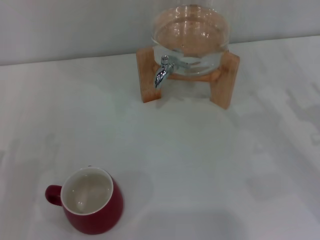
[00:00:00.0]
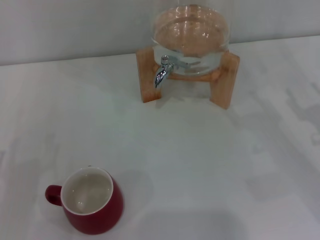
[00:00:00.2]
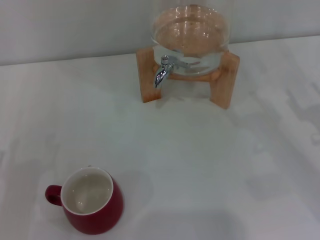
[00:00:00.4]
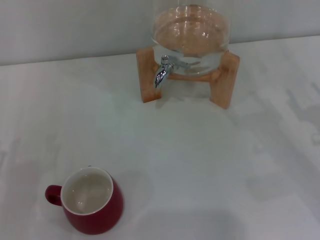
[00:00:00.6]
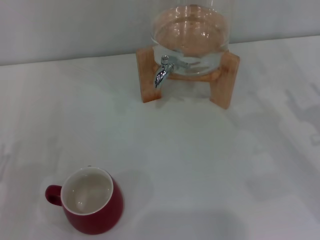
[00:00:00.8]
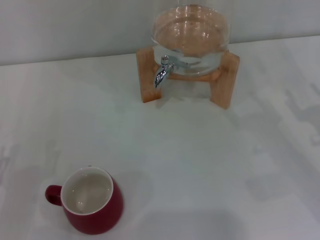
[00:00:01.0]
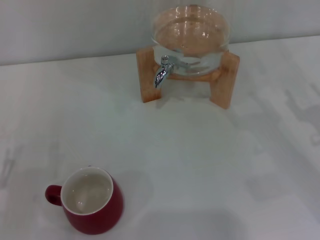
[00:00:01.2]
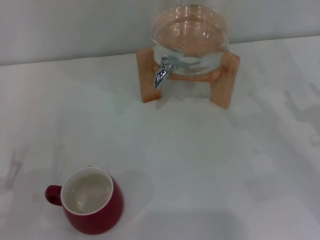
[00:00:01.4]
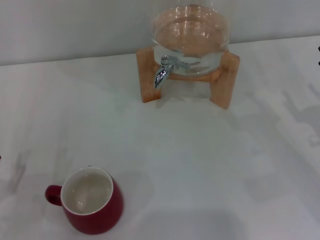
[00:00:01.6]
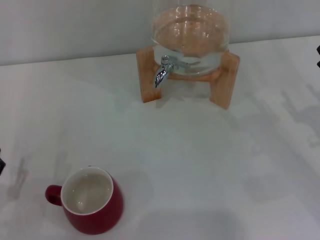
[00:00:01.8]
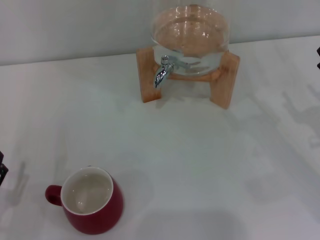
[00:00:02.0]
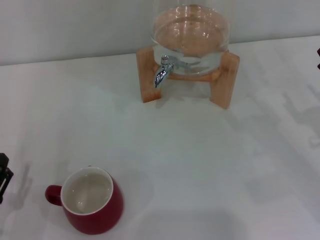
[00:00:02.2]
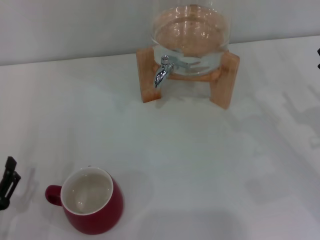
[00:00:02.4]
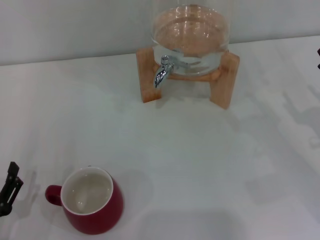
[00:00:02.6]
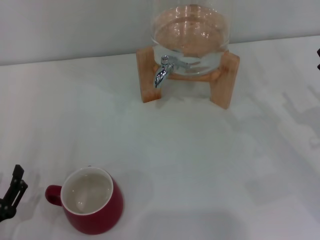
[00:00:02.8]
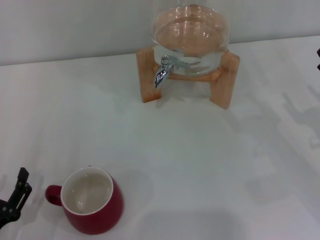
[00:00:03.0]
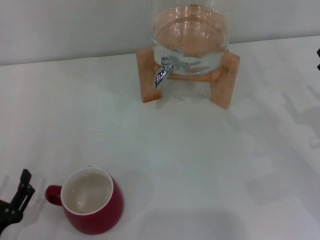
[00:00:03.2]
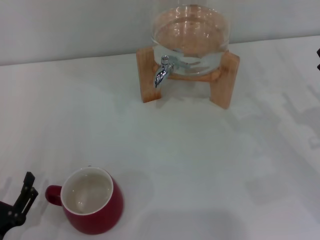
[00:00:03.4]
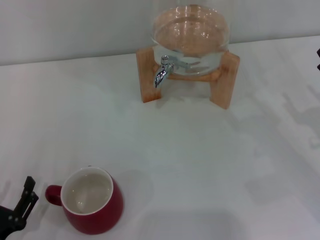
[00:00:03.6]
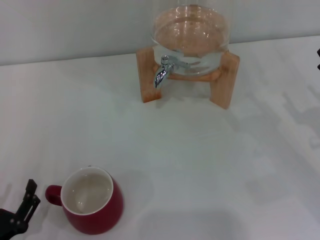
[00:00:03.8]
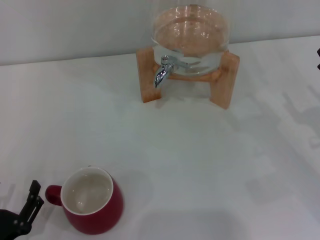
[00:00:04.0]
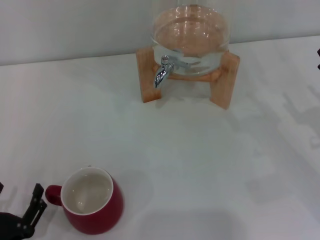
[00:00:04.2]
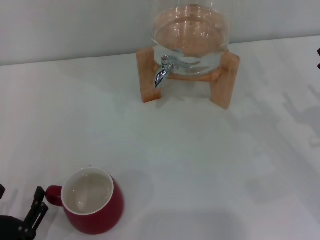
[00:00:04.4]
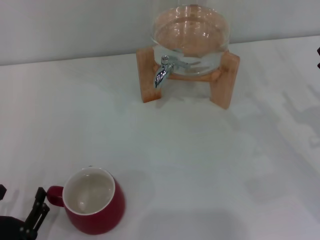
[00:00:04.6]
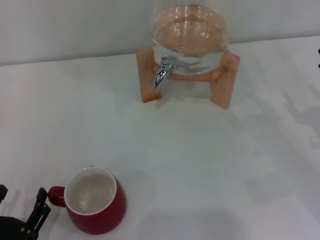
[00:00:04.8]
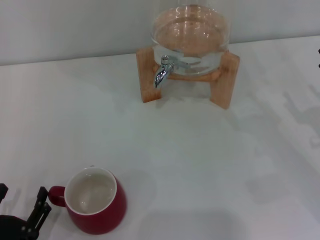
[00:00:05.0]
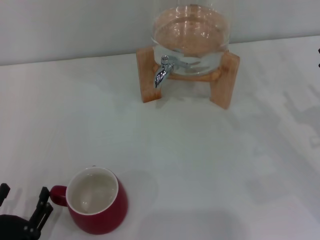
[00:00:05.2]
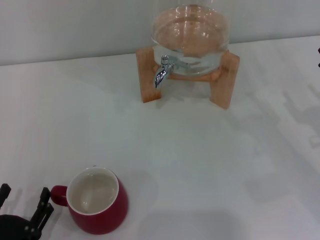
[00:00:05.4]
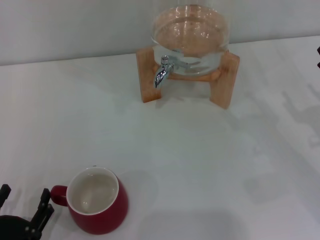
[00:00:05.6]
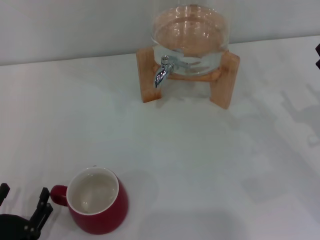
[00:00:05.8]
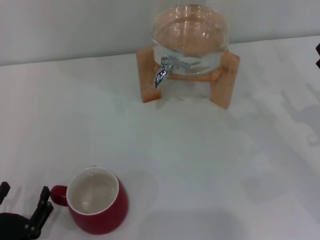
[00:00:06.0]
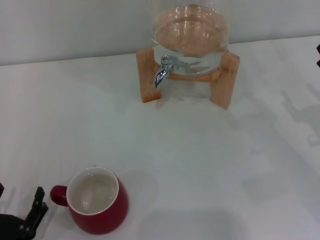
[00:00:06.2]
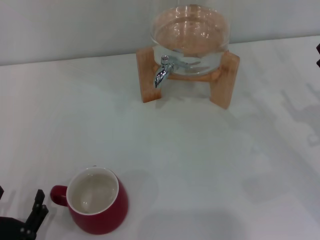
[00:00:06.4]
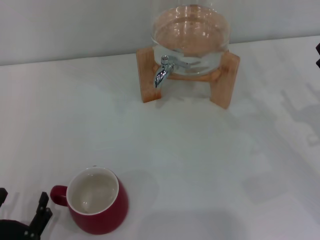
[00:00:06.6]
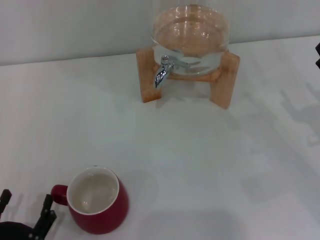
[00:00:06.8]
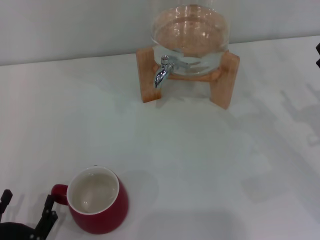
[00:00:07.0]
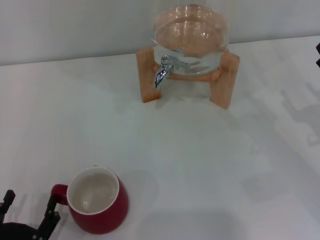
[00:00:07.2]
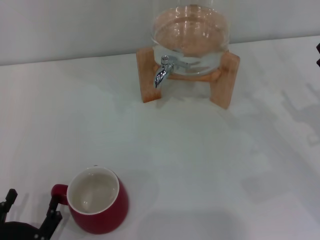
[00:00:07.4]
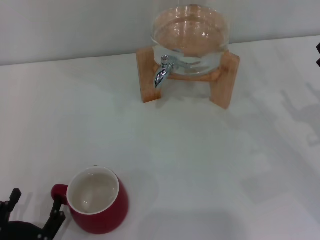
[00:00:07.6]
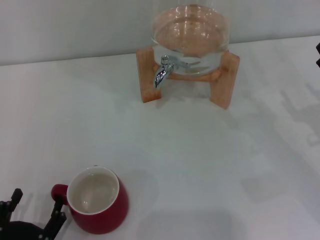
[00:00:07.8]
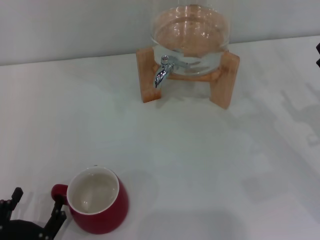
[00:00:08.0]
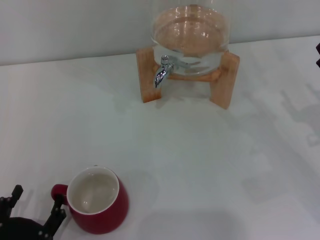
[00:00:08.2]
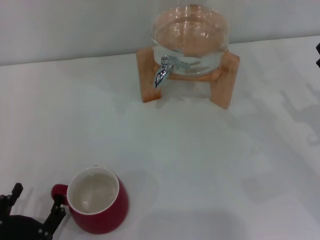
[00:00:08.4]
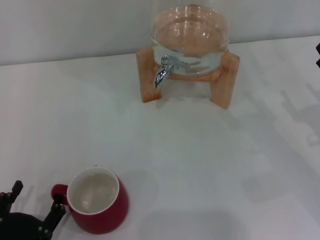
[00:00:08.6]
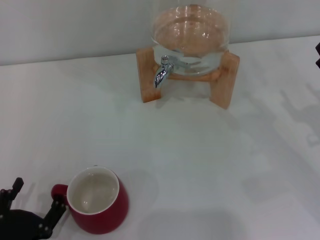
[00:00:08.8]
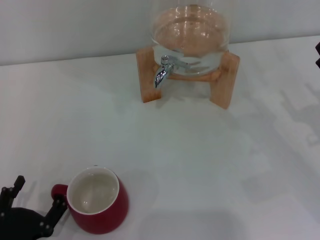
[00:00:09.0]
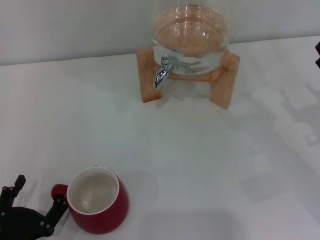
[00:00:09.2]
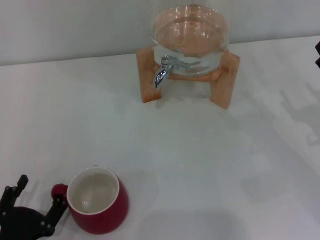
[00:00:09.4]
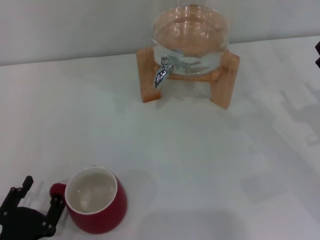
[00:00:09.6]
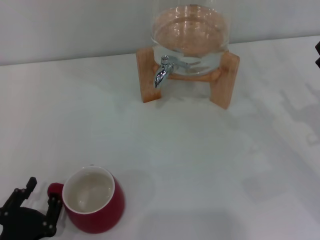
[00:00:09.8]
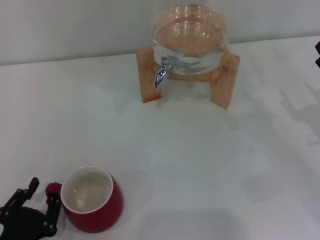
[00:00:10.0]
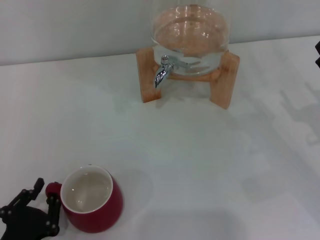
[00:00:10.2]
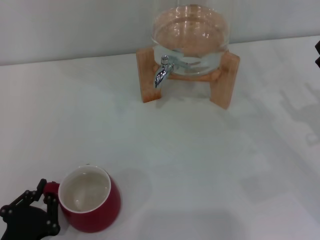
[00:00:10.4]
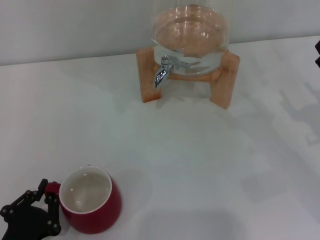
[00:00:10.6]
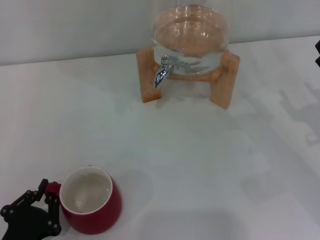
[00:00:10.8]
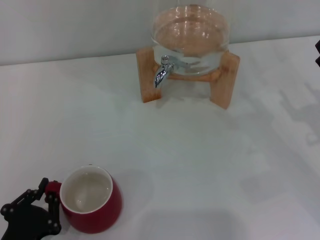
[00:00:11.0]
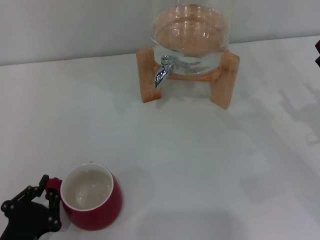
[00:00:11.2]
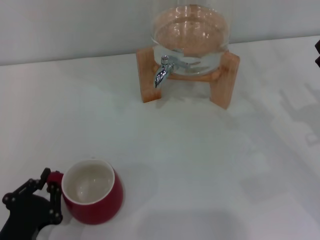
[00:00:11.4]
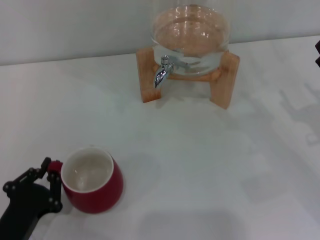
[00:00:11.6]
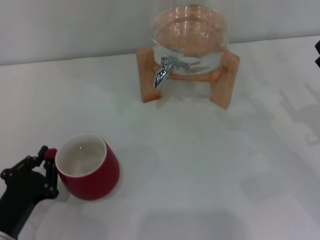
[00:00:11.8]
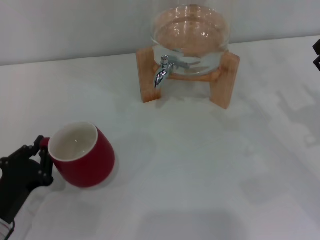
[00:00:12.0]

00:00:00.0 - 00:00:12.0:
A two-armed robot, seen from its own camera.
Task of the whole recording: the left gripper pick up the red cup and place it horizontally under the faucet, the right gripper turn on the faucet to fill the cup, and then turn off the faucet.
00:00:01.6 - 00:00:03.0: The grippers move only a little.
00:00:03.0 - 00:00:04.4: The grippers stay close to where they were, moving slightly.
00:00:04.4 - 00:00:06.0: Both grippers stay about where they are.
00:00:06.0 - 00:00:09.0: There are only small adjustments of the grippers.
00:00:09.0 - 00:00:10.4: The left gripper closes up.
00:00:10.4 - 00:00:12.0: The left gripper shifts about 10 cm forward.

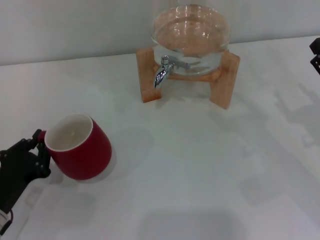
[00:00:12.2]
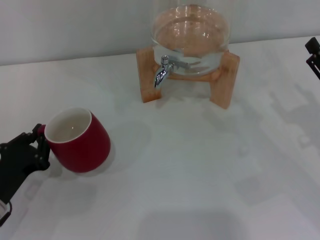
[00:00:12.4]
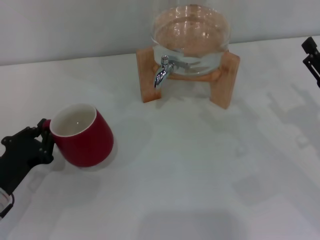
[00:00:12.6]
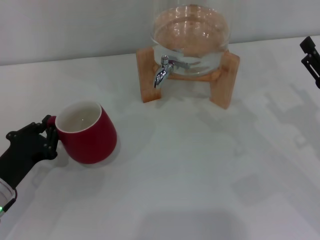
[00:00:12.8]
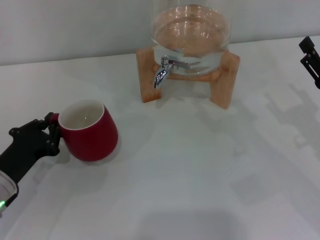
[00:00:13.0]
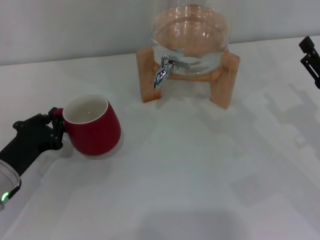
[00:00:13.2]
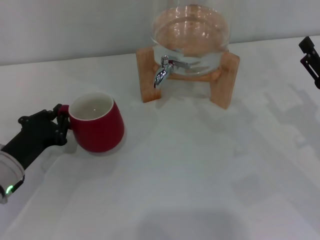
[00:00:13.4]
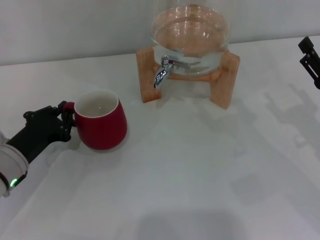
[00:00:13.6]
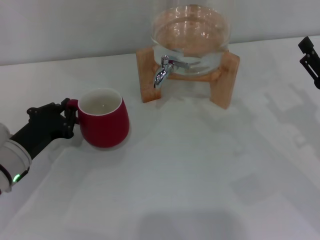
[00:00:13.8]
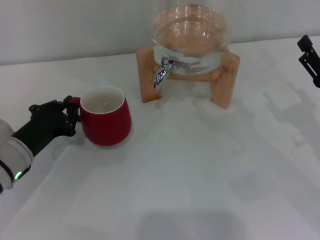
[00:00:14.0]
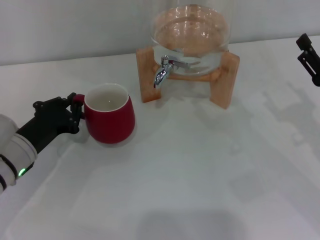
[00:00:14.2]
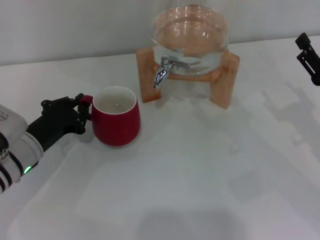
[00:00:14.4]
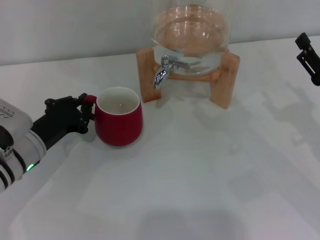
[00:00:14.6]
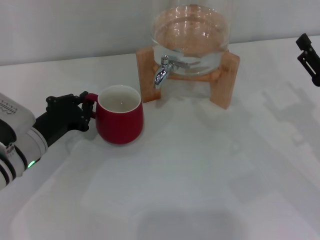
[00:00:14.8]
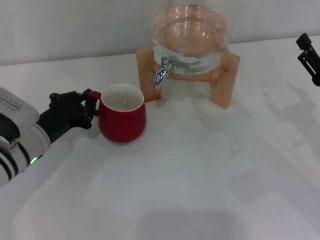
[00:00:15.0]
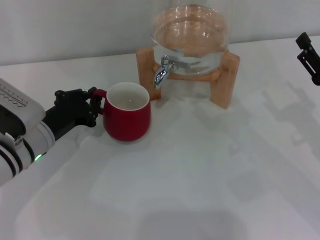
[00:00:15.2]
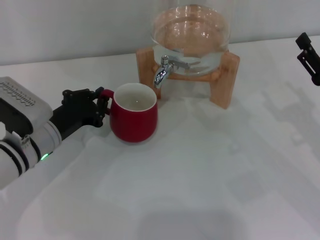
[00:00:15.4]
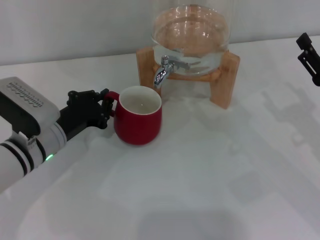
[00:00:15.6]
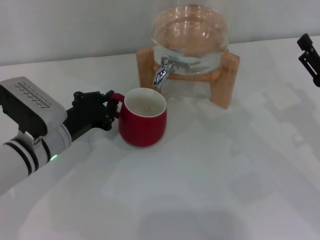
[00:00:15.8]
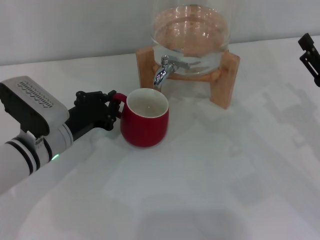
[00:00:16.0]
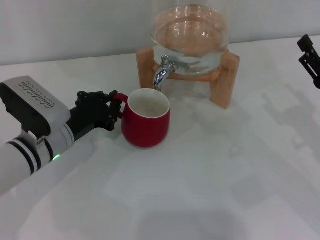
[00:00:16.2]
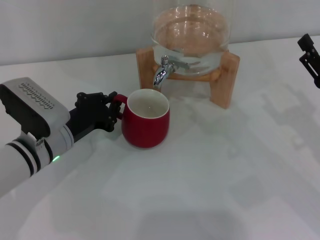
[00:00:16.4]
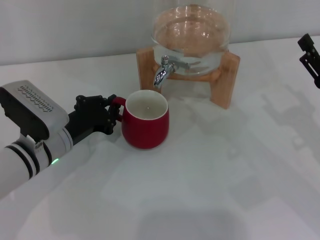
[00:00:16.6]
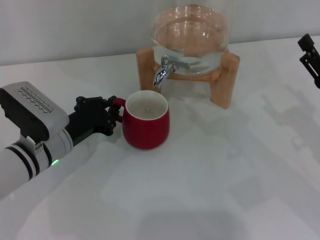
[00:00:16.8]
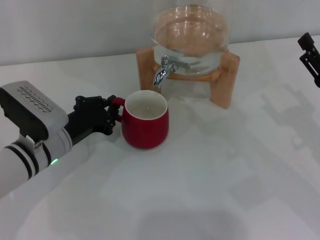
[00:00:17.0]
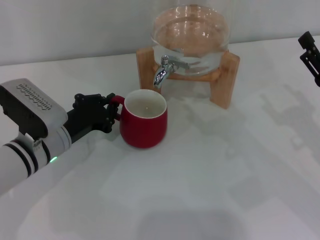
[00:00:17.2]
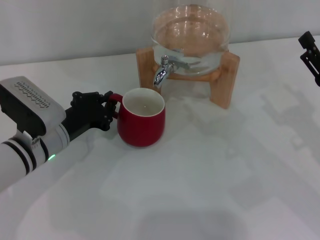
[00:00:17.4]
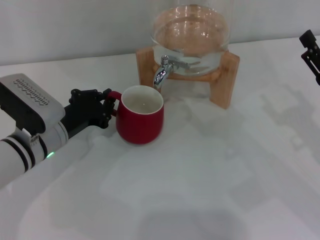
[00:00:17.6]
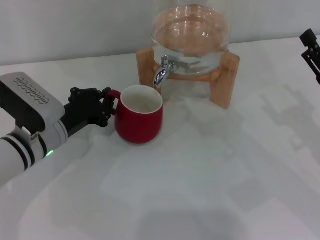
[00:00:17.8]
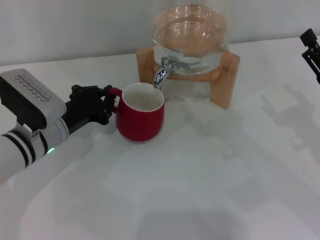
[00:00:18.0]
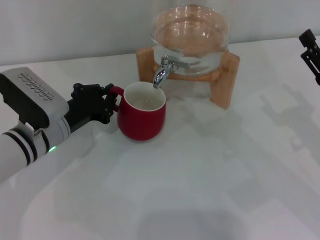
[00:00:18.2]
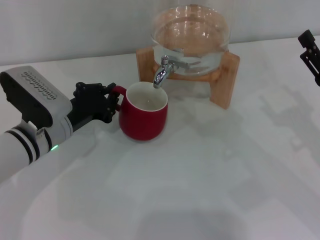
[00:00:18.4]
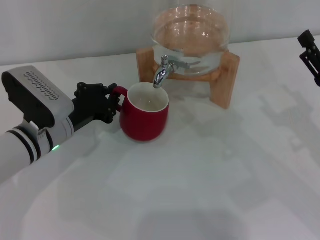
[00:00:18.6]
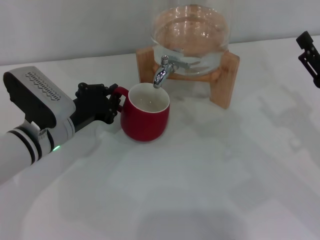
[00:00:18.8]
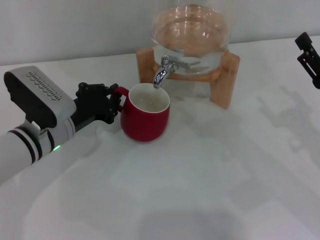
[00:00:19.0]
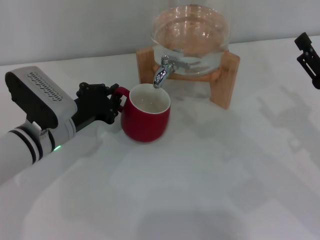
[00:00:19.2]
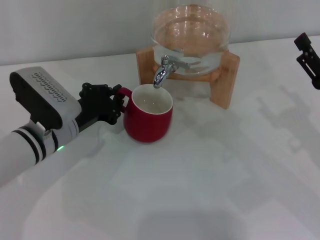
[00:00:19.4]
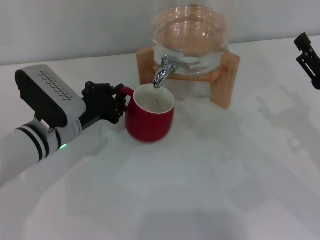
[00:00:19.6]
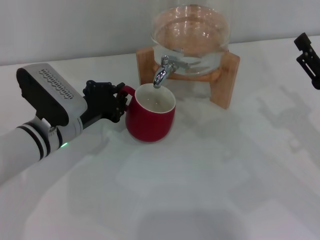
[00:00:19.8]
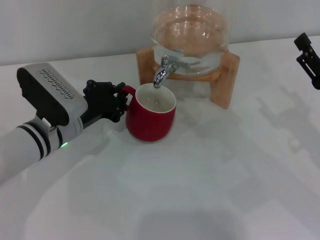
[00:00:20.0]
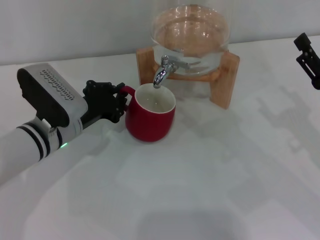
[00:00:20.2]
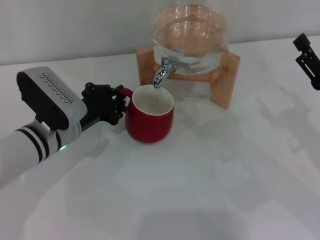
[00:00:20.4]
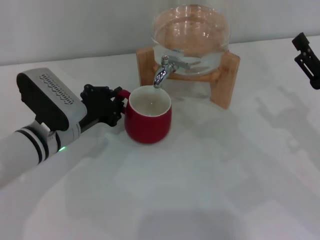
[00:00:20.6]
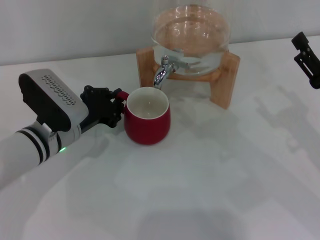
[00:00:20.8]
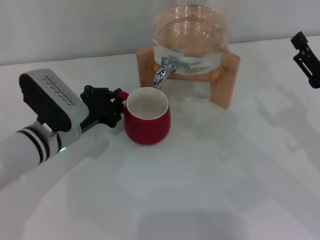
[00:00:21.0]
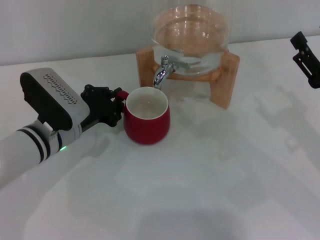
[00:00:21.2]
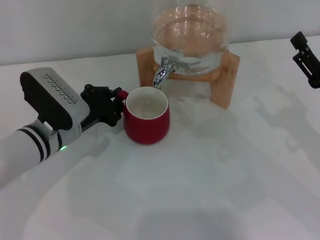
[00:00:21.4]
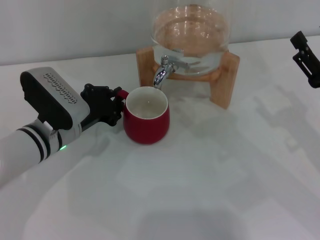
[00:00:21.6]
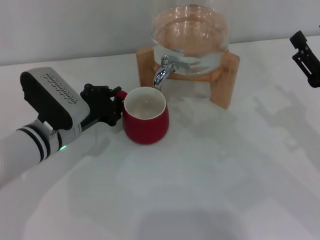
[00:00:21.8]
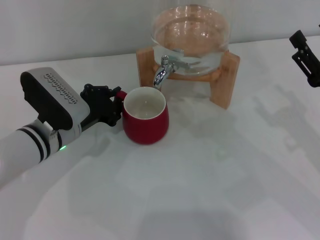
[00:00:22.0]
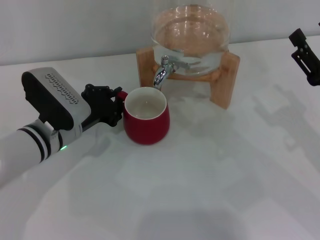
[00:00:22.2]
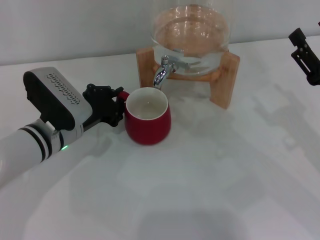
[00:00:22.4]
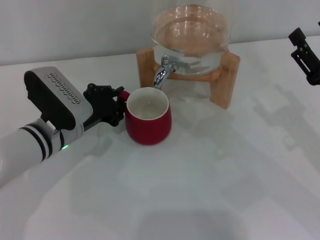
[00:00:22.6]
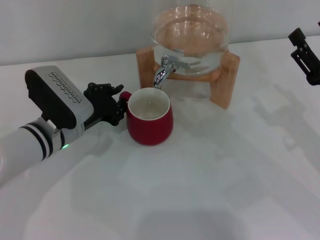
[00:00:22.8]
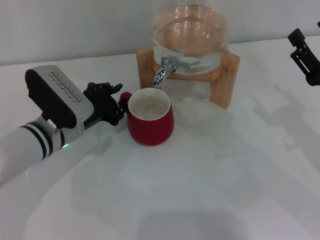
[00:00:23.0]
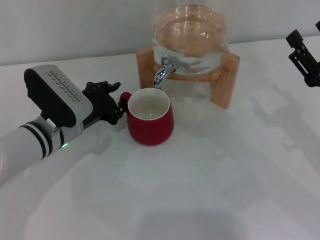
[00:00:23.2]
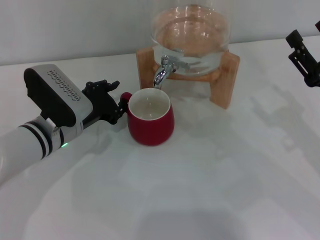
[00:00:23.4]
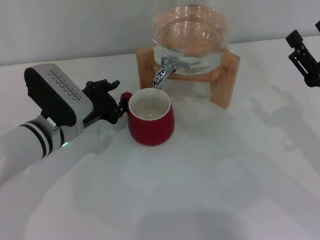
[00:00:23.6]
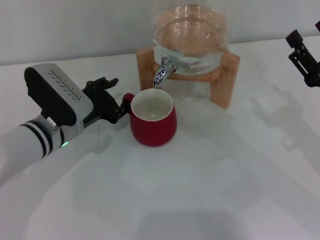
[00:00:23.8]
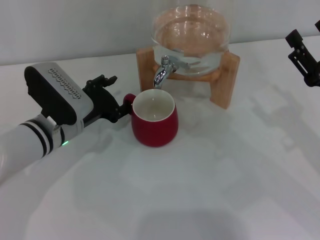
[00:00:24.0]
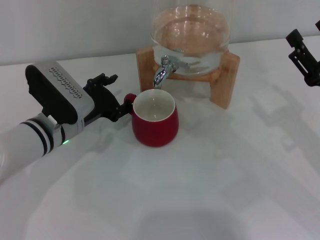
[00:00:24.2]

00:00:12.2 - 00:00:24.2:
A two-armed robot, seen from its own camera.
Task of the whole recording: the left gripper pick up the red cup and place it horizontally under the faucet, the right gripper turn on the faucet to fill the cup, and then turn off the faucet.
00:00:12.2 - 00:00:13.8: The left gripper travels forward by approximately 10 cm.
00:00:13.8 - 00:00:15.2: There are only small adjustments of the grippers.
00:00:15.2 - 00:00:19.8: The grippers make only small movements.
00:00:19.8 - 00:00:22.6: Neither gripper changes place.
00:00:22.6 - 00:00:24.2: The left gripper opens up.
